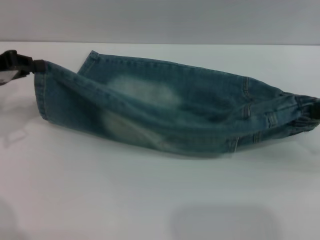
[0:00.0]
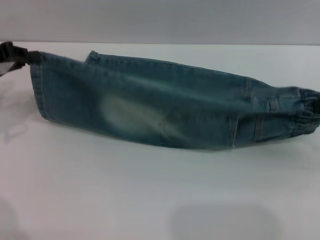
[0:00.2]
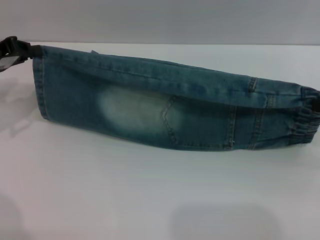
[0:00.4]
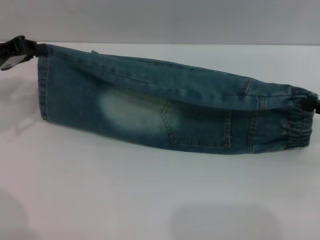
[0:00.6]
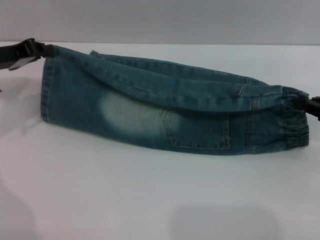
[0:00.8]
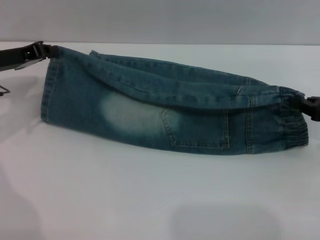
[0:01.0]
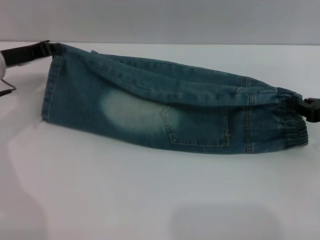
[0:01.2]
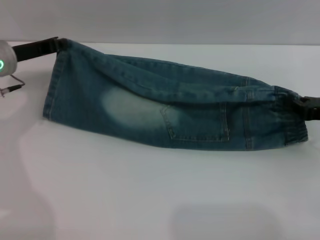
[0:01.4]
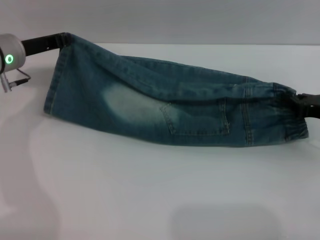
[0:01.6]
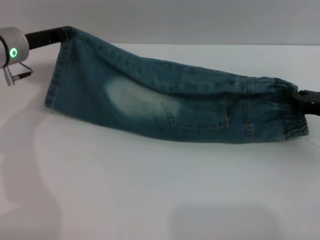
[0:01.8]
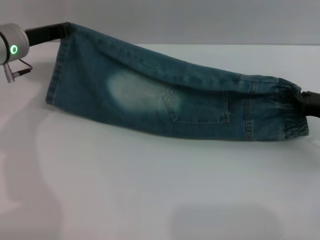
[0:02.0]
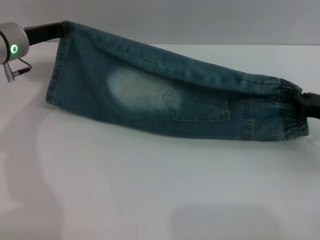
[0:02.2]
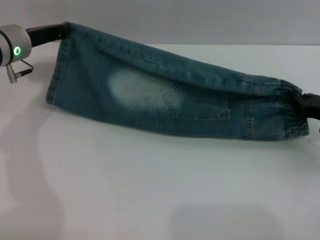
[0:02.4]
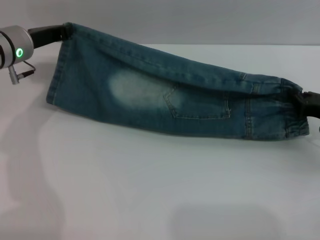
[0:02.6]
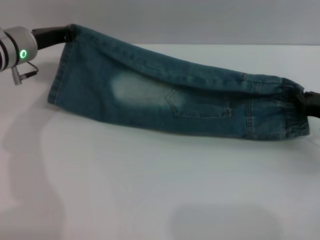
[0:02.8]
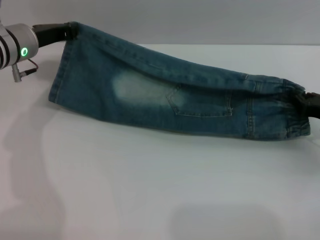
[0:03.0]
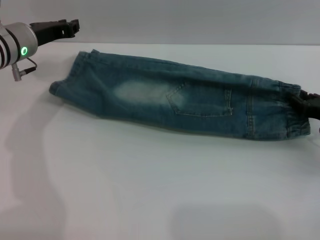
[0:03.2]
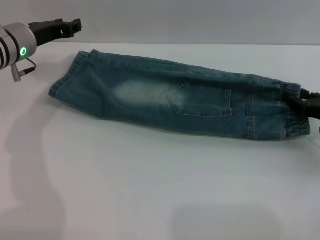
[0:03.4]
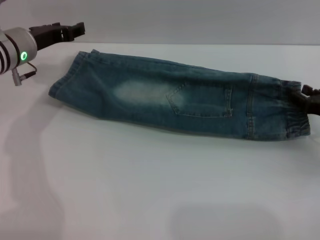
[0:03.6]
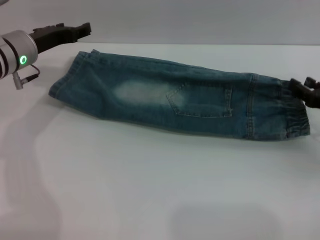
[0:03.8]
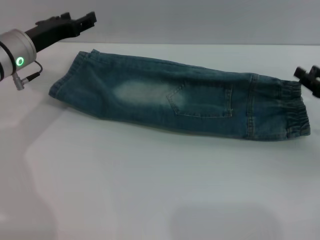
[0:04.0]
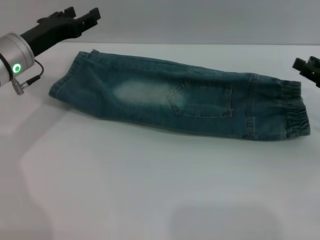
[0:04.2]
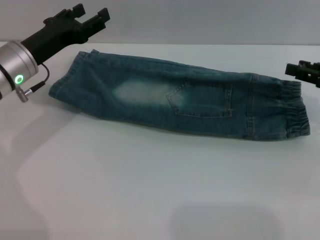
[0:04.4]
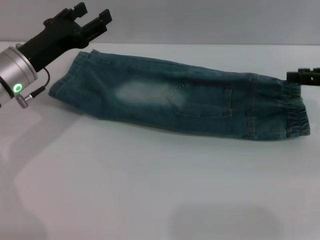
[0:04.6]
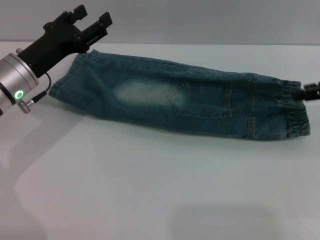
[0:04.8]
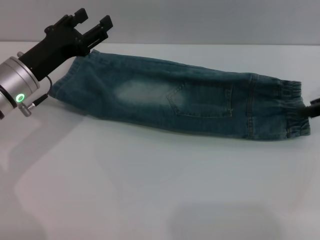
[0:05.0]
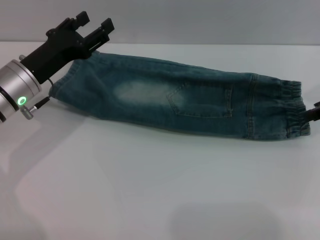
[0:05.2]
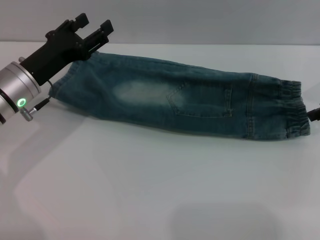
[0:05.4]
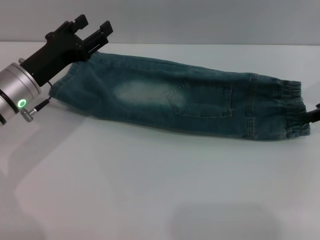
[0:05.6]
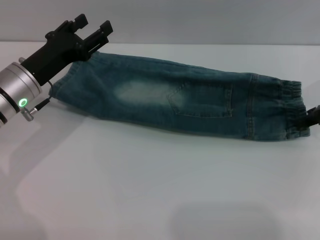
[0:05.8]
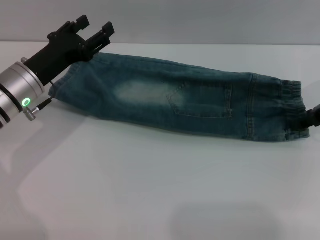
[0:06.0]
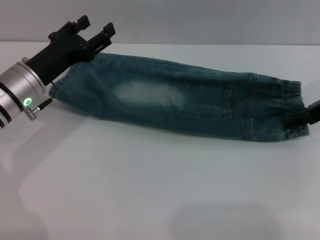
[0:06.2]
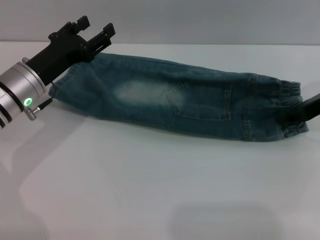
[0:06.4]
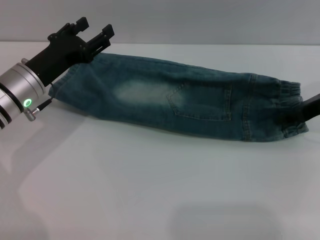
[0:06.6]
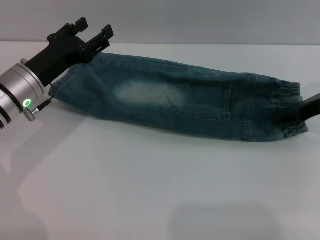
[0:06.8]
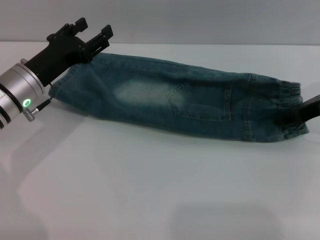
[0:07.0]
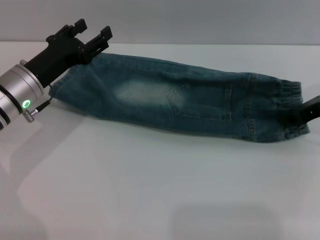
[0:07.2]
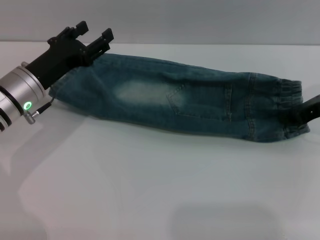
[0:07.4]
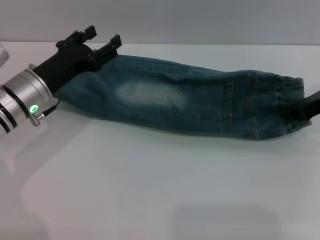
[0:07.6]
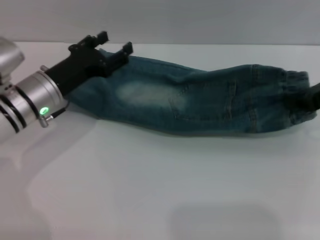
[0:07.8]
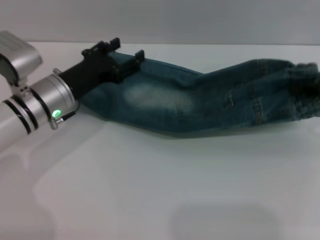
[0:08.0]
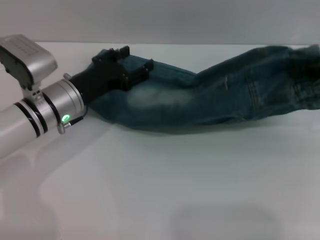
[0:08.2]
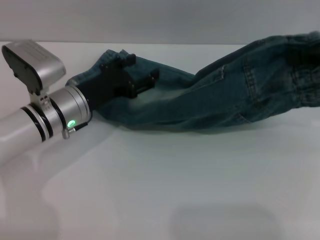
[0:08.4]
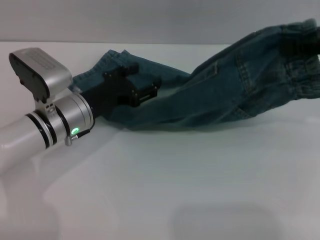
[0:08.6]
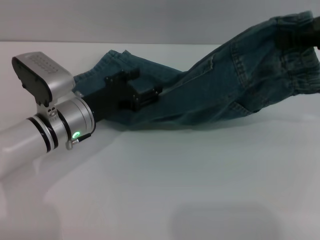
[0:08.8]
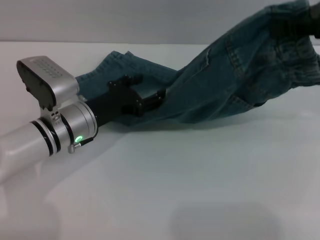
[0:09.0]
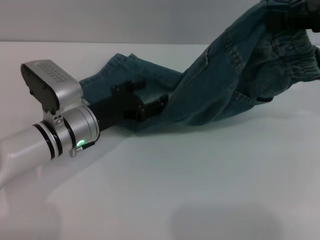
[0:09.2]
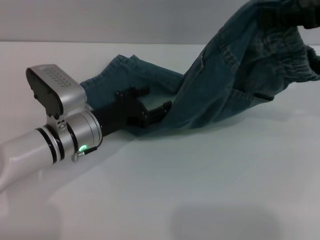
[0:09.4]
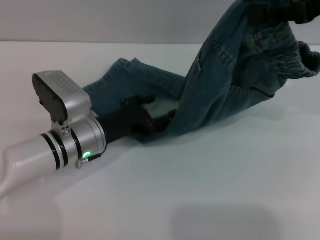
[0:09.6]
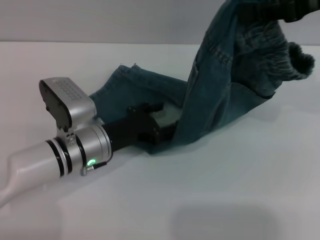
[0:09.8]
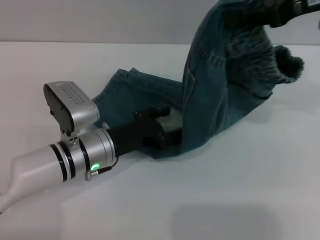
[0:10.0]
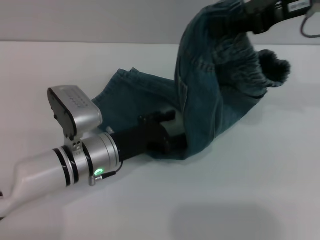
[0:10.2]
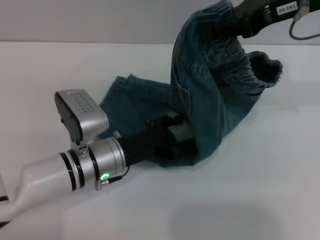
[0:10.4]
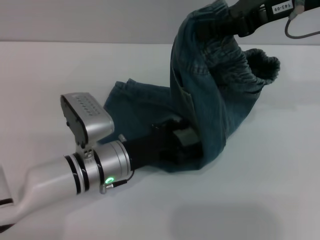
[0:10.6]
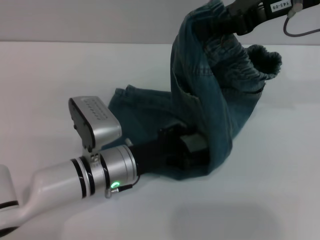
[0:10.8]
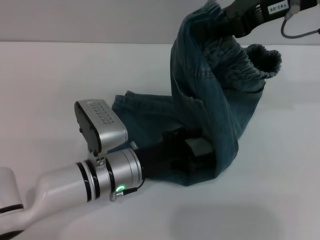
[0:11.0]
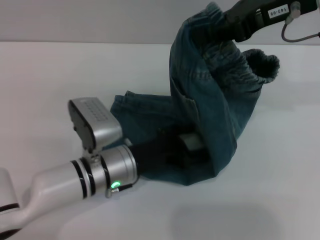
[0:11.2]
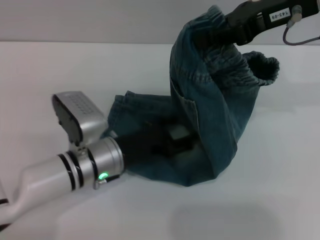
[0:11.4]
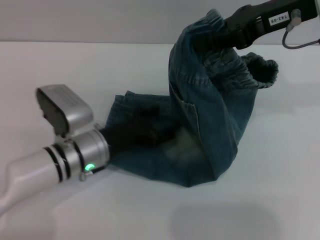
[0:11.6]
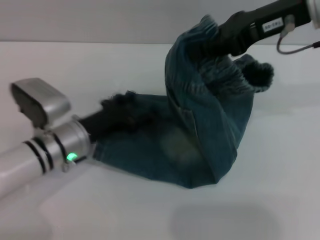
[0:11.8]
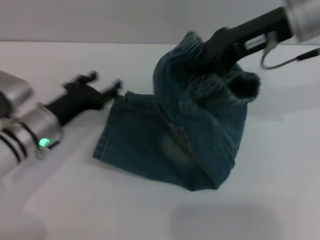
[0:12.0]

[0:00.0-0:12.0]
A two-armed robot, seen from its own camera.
Step, 0:00.0 to 0:03.8: Fold the bottom of the shorts upward with right gripper.
0:00.0 to 0:01.6: The right gripper moves downward, roughly 10 cm. The left gripper moves to the right and forward, approximately 10 cm.
0:01.6 to 0:03.0: The grippers make only small movements.
0:03.0 to 0:04.4: The right gripper heads upward, covering some 10 cm, and opens its fingers; the left gripper moves backward, some 5 cm, and opens up.
0:04.4 to 0:06.0: The right gripper shifts by roughly 5 cm.
0:06.0 to 0:07.6: The right gripper closes up.
0:07.6 to 0:09.0: The left gripper is displaced to the right by some 5 cm, while the right gripper moves upward, some 15 cm.
0:09.0 to 0:10.4: The right gripper is displaced to the left by about 10 cm. Meanwhile the left gripper changes place by about 5 cm.
0:10.4 to 0:12.0: The left gripper shifts about 10 cm to the left.

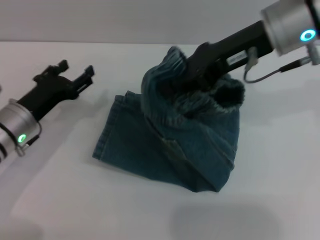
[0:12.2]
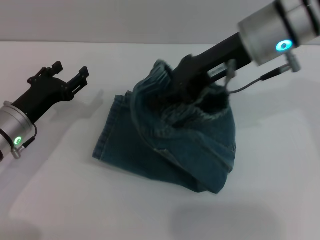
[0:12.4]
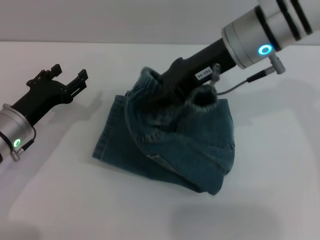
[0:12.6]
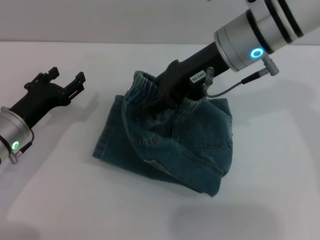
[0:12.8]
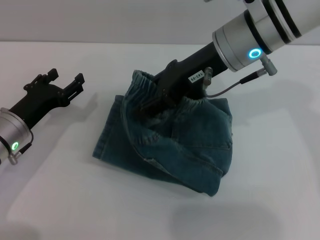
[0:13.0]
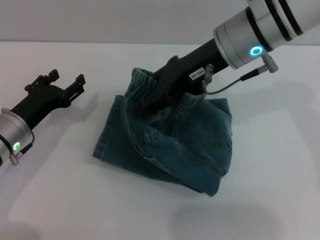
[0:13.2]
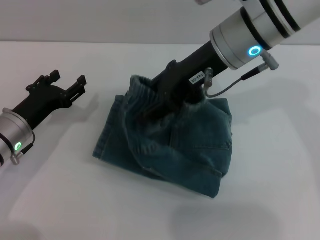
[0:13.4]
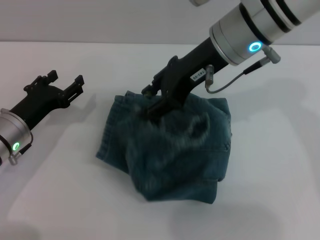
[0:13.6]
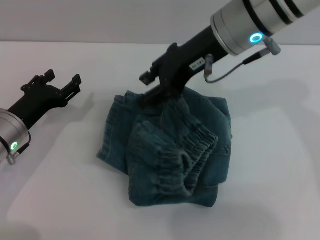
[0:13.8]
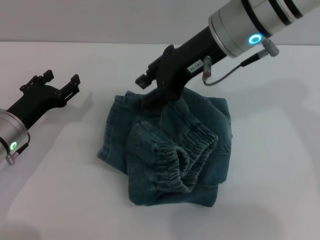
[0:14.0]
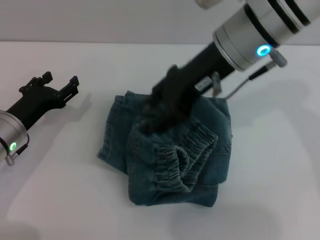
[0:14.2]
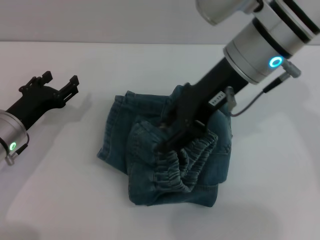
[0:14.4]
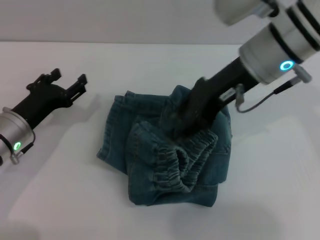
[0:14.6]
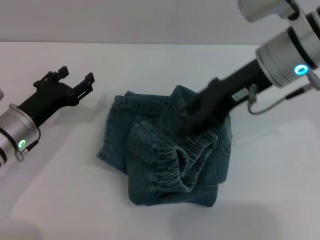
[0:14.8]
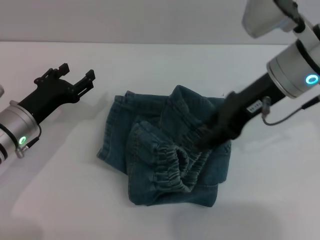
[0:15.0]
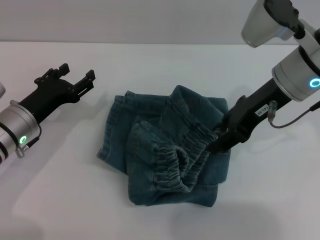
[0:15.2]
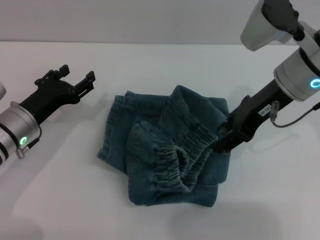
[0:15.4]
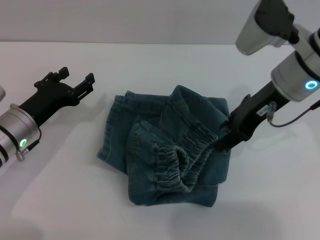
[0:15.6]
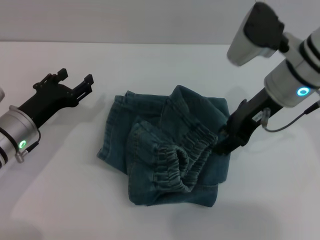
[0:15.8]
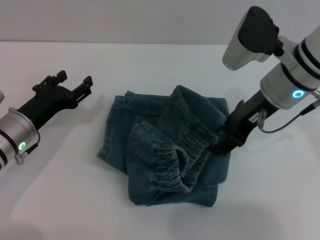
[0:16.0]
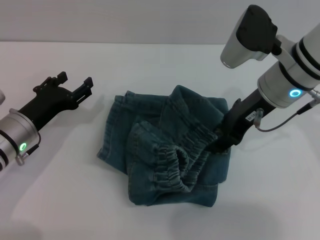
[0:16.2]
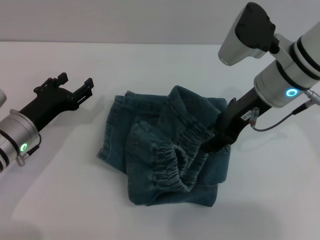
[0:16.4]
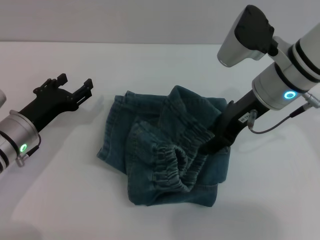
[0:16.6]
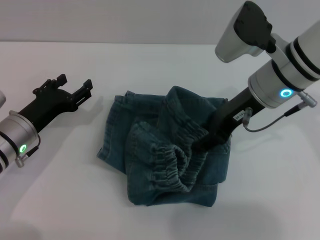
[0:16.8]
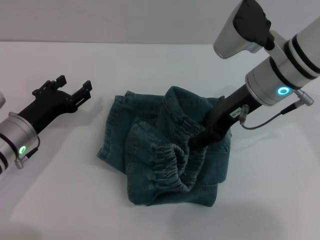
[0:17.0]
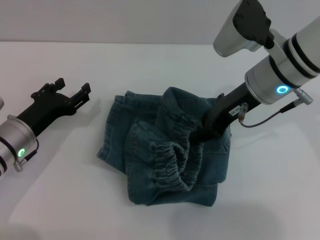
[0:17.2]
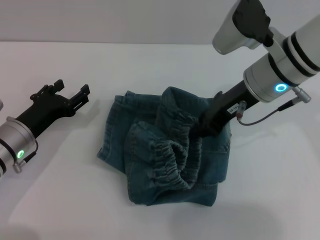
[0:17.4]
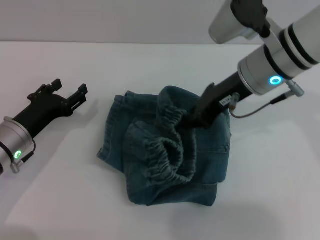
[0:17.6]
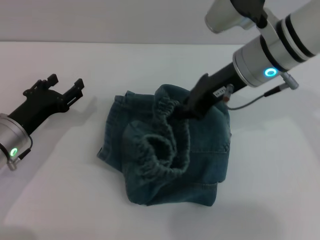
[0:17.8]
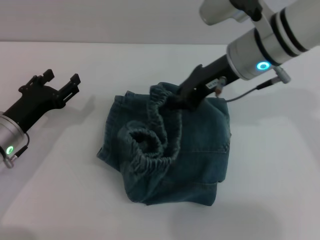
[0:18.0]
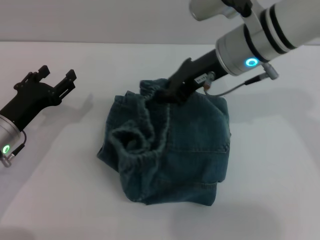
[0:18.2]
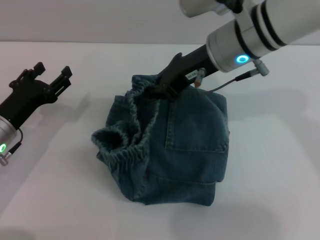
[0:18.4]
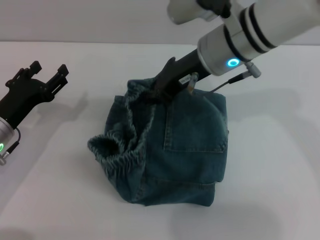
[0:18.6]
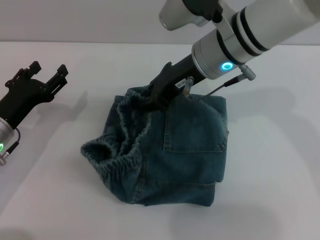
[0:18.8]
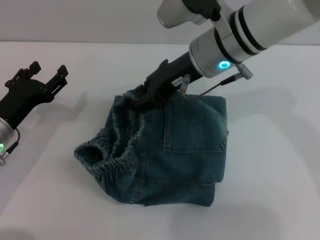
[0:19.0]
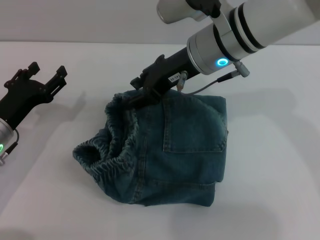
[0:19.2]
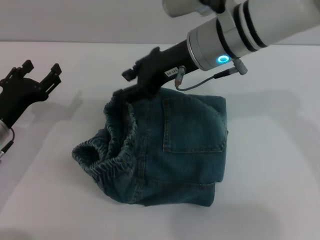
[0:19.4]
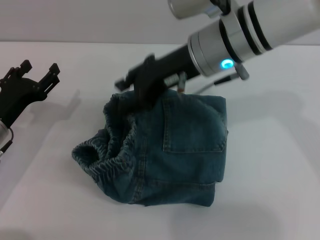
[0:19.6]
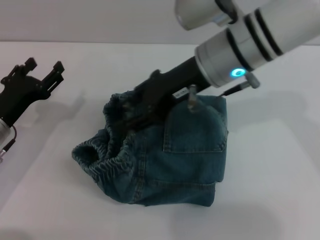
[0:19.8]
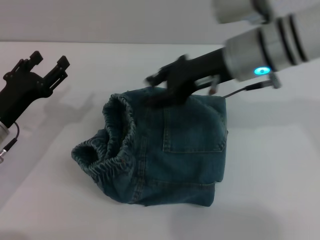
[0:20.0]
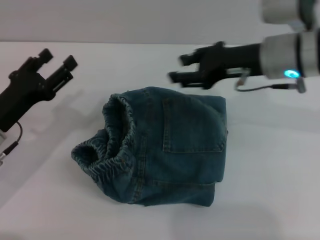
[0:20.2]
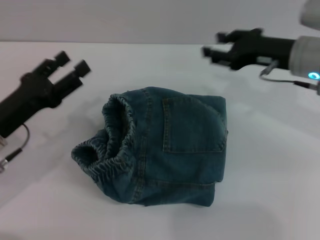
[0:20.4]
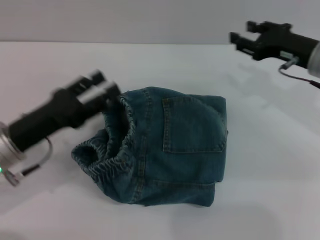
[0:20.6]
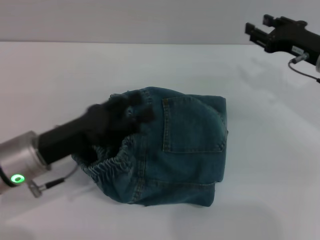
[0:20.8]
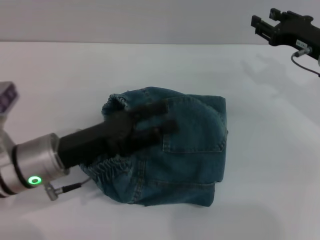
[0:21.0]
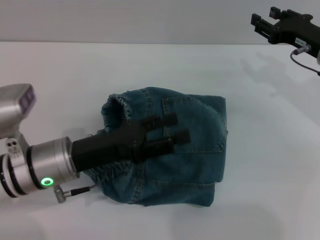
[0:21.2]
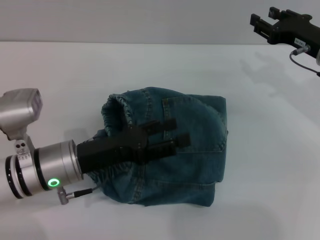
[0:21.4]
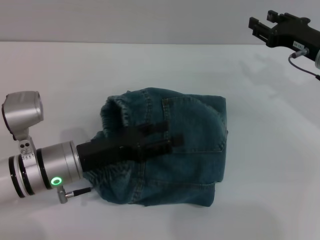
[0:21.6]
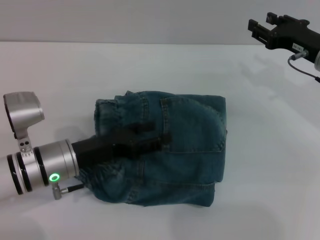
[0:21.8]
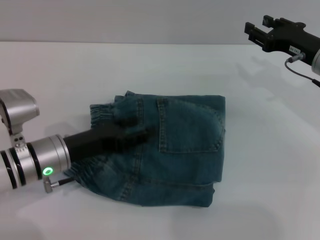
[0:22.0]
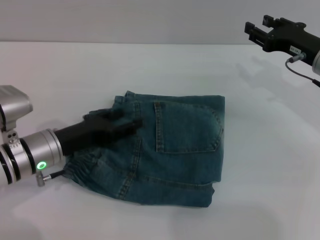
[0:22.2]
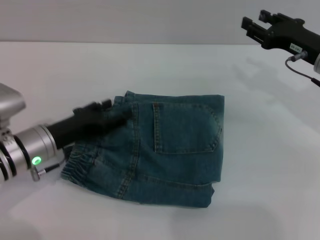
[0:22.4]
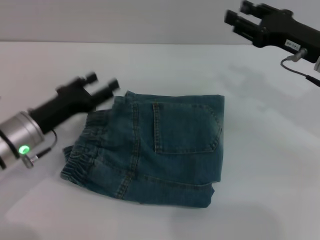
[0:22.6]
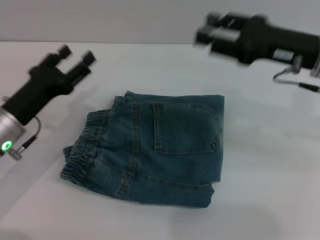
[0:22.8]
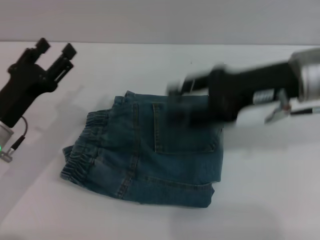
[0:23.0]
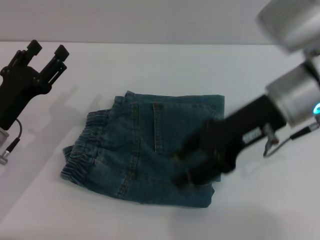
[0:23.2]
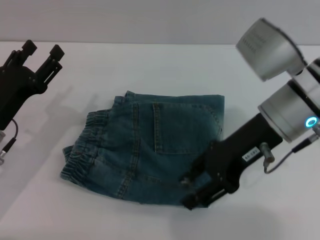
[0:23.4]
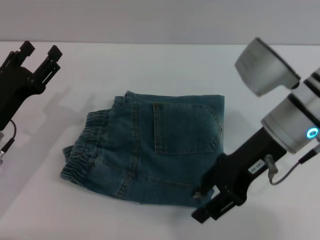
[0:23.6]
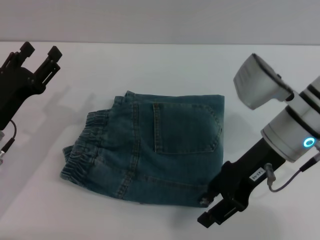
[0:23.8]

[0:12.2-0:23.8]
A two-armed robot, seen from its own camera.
Step, 0:12.2 to 0:19.4: Fold the shorts from right to left with right gripper.
0:12.2 to 0:13.6: The right gripper shifts approximately 5 cm to the left, and opens its fingers.
0:13.6 to 0:15.0: The right gripper goes approximately 5 cm to the right.
0:15.0 to 0:16.6: The grippers make only small movements.
0:16.6 to 0:18.0: The right gripper closes.
0:18.0 to 0:19.4: The right gripper opens its fingers.
0:19.4 to 0:21.0: The left gripper travels to the right by some 10 cm; the right gripper travels to the right and downward by some 20 cm.
0:21.0 to 0:22.4: The left gripper changes place by roughly 5 cm.
0:22.4 to 0:23.8: The right gripper goes about 10 cm to the left and backward, while the left gripper shifts by about 5 cm.
